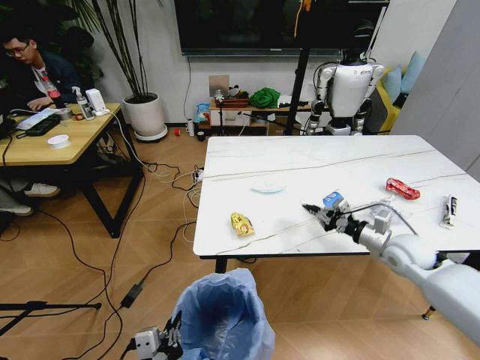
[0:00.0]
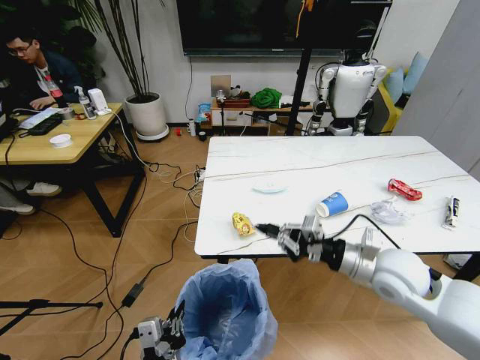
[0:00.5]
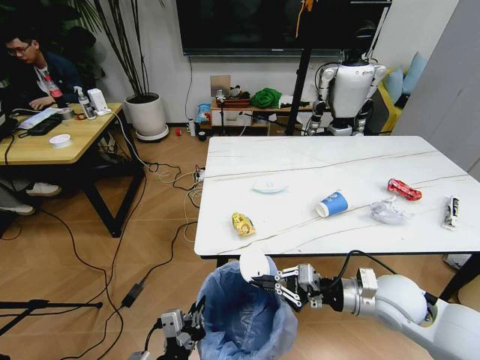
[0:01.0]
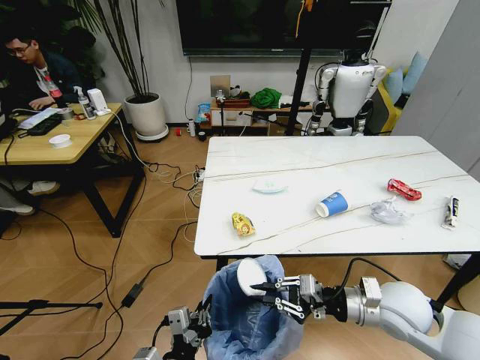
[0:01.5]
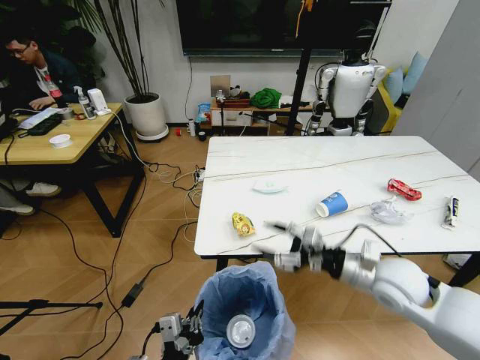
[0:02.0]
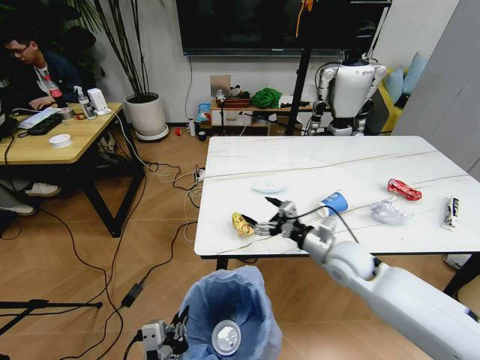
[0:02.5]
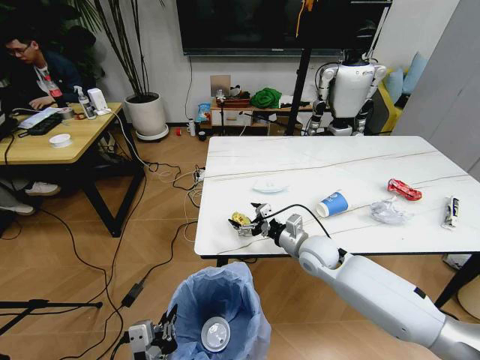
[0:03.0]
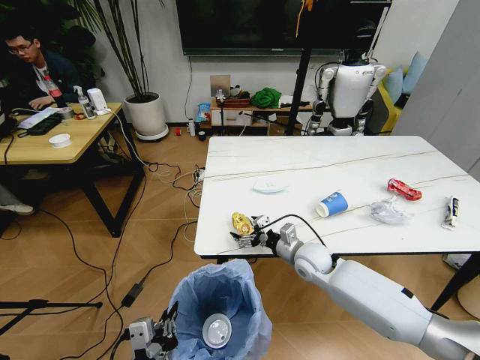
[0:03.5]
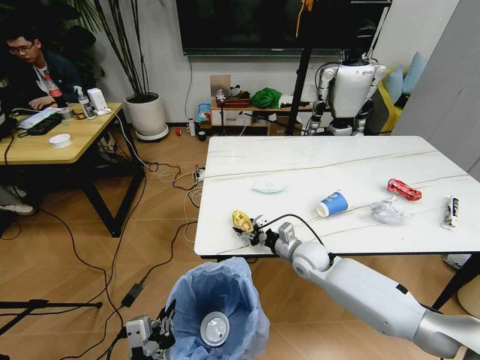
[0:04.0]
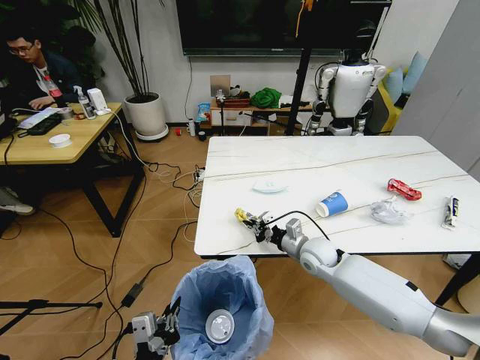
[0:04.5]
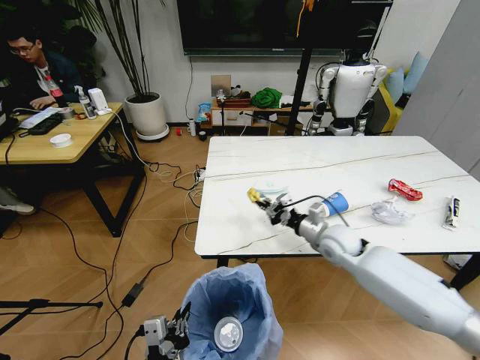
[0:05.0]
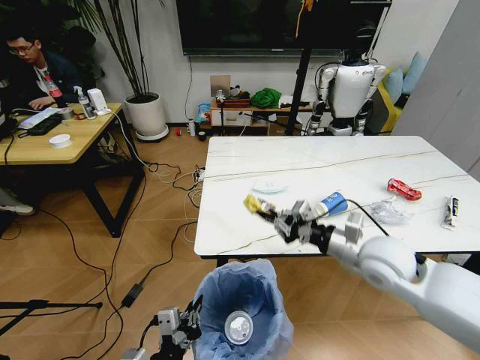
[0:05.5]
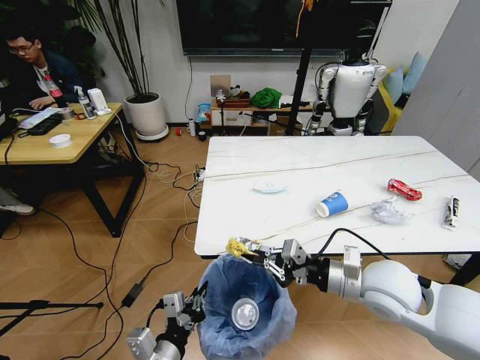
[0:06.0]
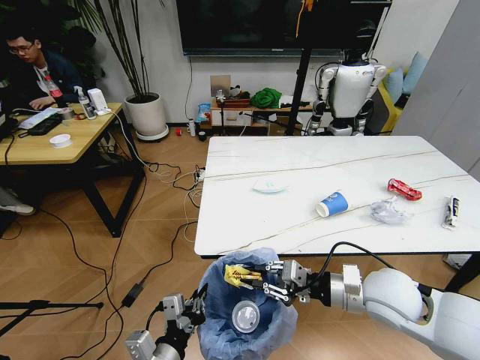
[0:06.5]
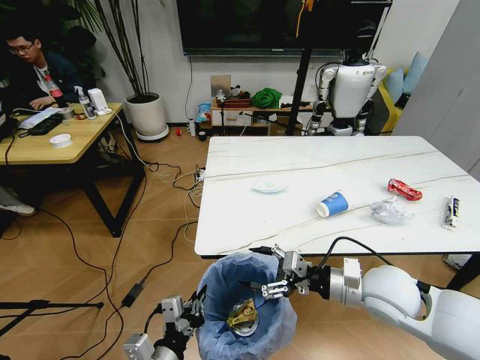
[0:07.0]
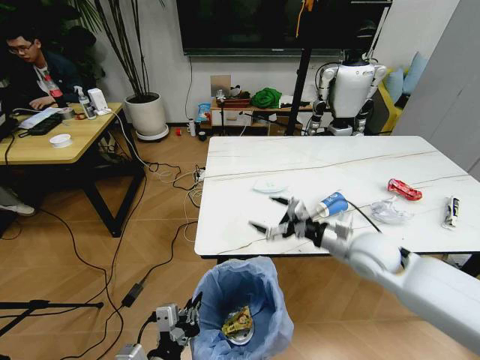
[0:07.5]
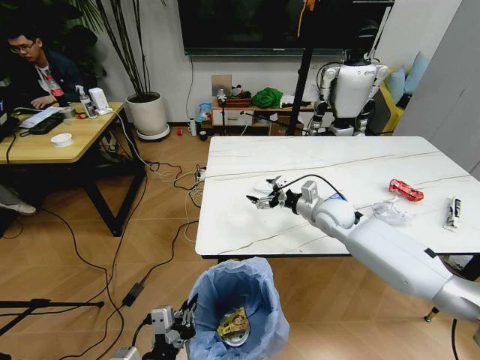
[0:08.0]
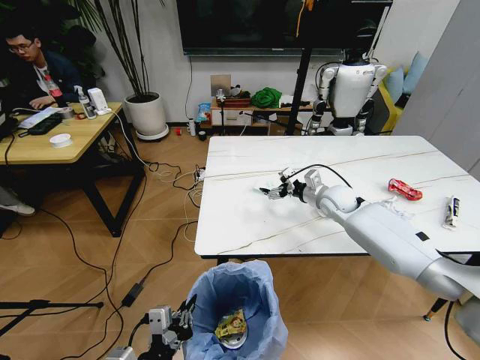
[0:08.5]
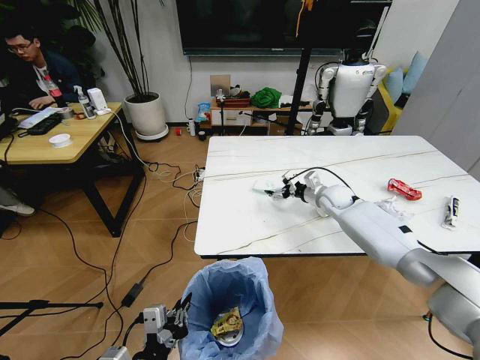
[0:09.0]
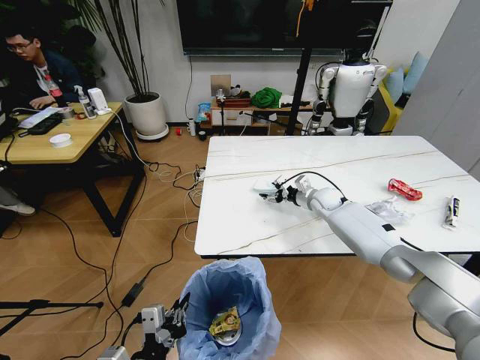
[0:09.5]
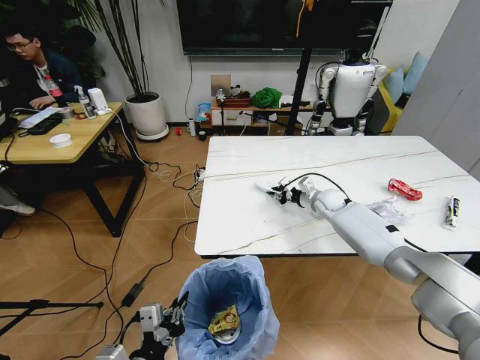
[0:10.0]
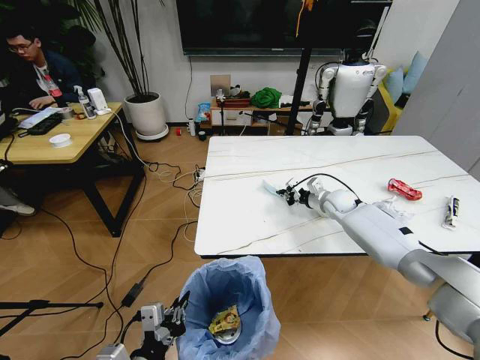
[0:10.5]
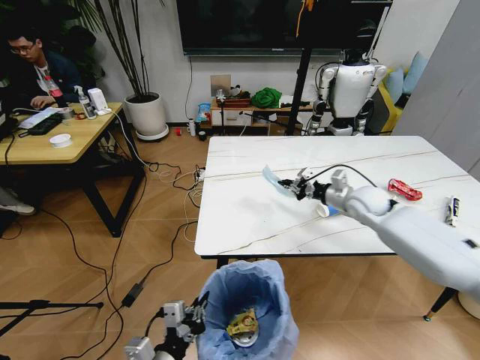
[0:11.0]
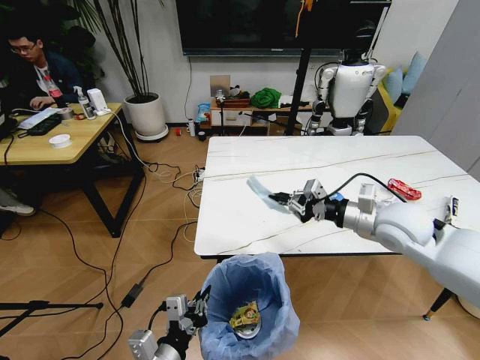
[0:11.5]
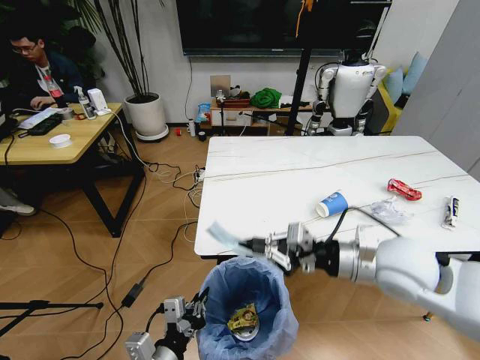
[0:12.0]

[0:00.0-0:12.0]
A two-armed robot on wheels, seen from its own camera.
Task of the whole recording: Pick up the trash bin and place the trash from the table into it.
0:00.0 to 0:02.0: The right gripper heads to the left and backward, covering approximately 15 cm, and opens its fingers.
0:02.0 to 0:04.0: The right gripper shifts roughly 20 cm downward, forward and to the left. Meanwhile the left gripper ends up roughly 5 cm from where it was.
0:04.0 to 0:06.0: The left gripper moves forward, roughly 5 cm. Meanwhile the right gripper travels upward, backward and to the right by approximately 20 cm, and closes.
0:06.0 to 0:08.0: The right gripper is displaced forward by some 20 cm, and opens.
0:08.0 to 0:10.0: The right gripper travels forward and downward by approximately 10 cm, and closes up.
0:10.0 to 0:12.0: The right gripper goes roughly 35 cm backward and upward.

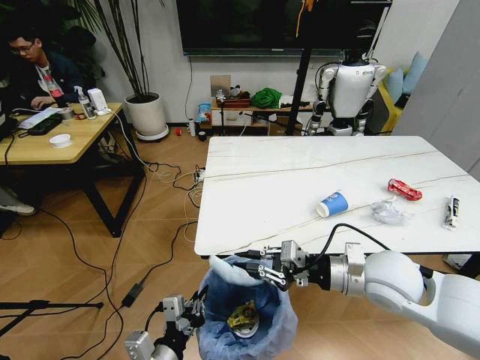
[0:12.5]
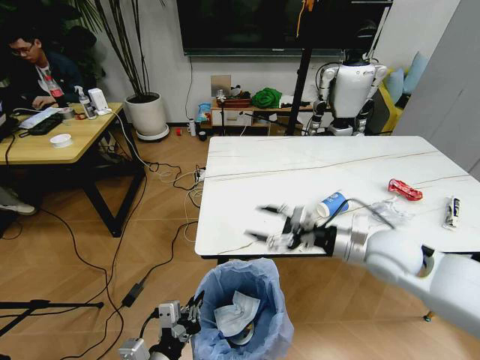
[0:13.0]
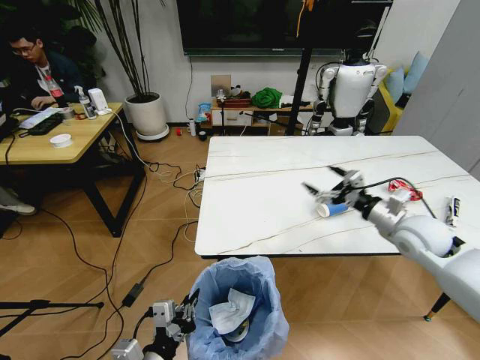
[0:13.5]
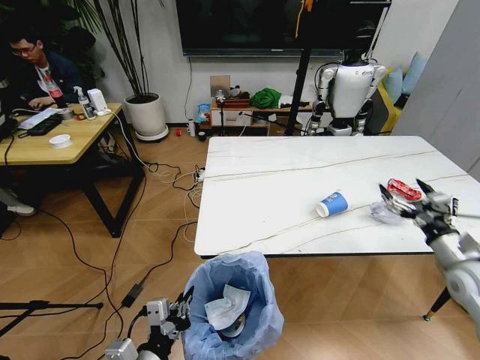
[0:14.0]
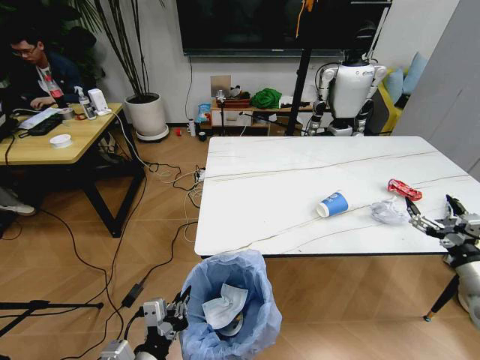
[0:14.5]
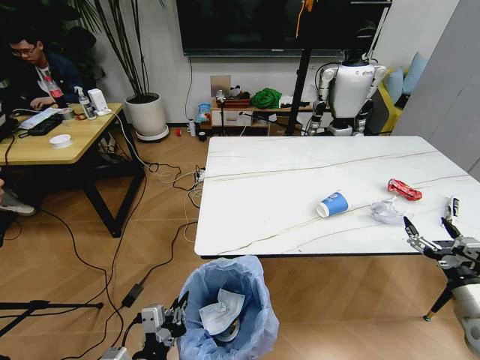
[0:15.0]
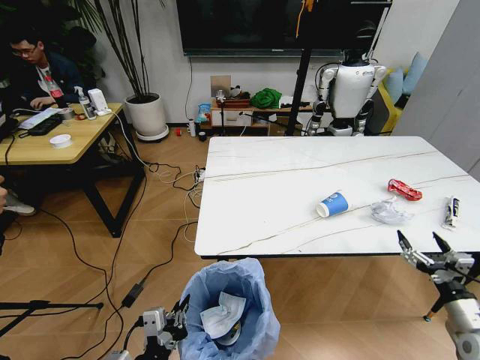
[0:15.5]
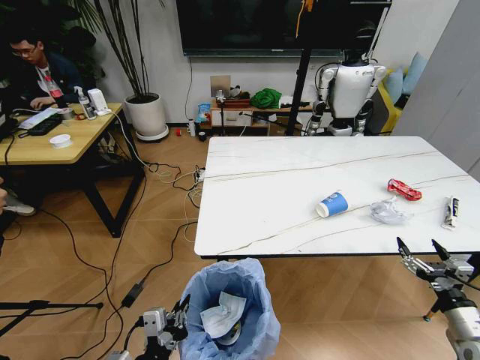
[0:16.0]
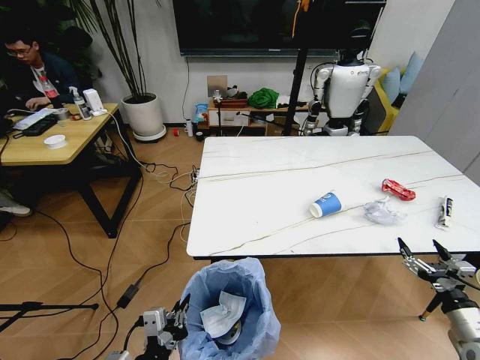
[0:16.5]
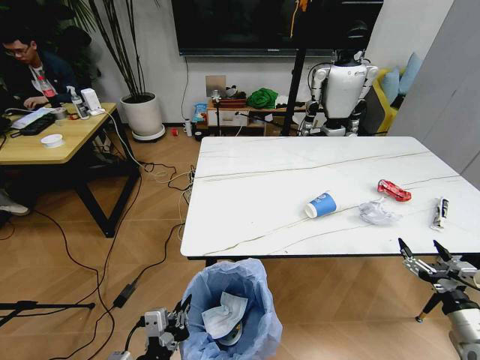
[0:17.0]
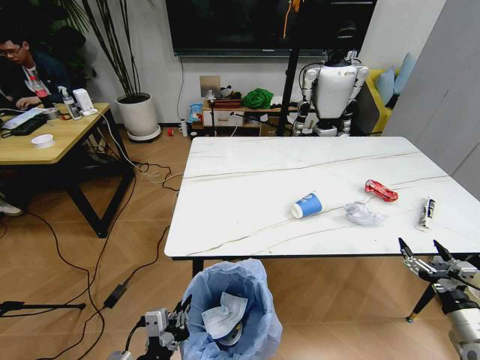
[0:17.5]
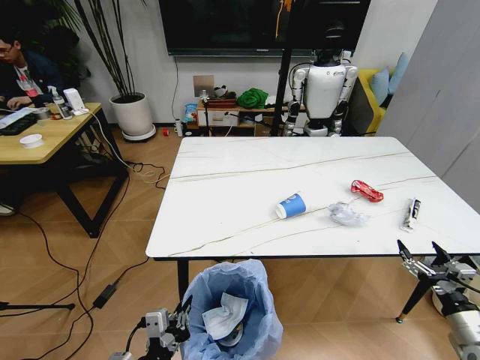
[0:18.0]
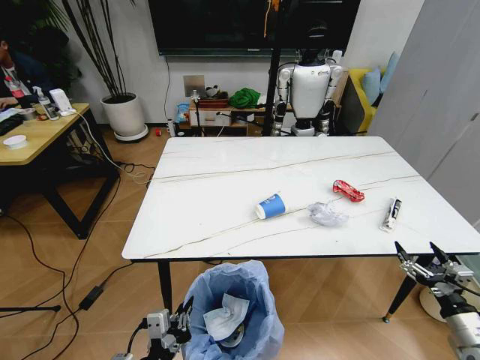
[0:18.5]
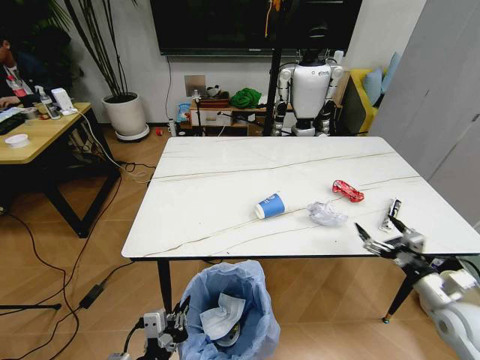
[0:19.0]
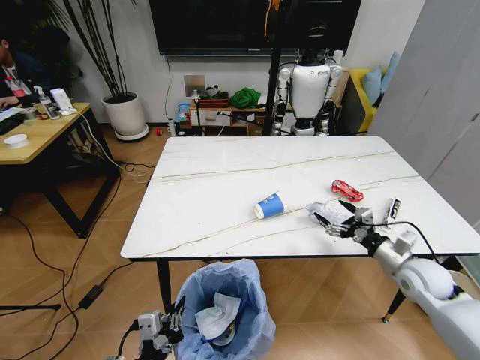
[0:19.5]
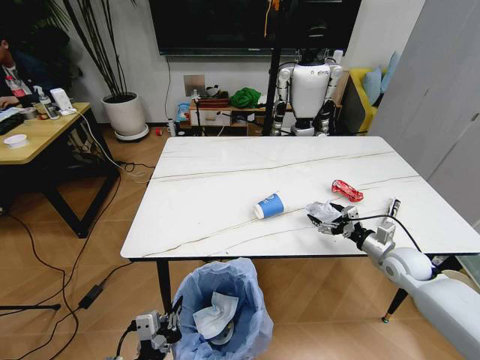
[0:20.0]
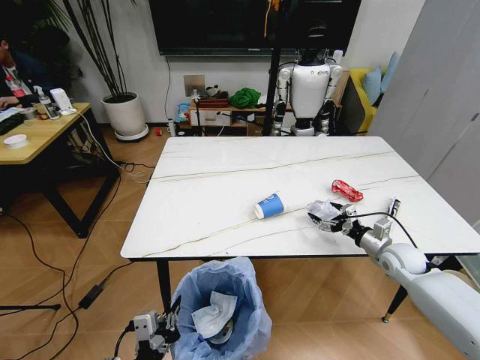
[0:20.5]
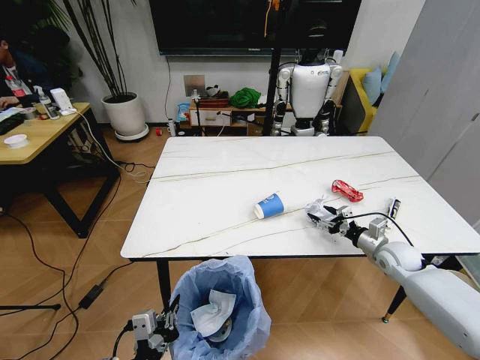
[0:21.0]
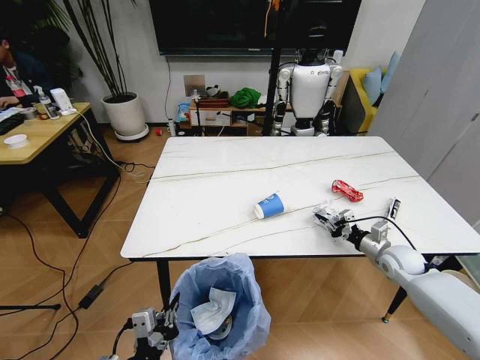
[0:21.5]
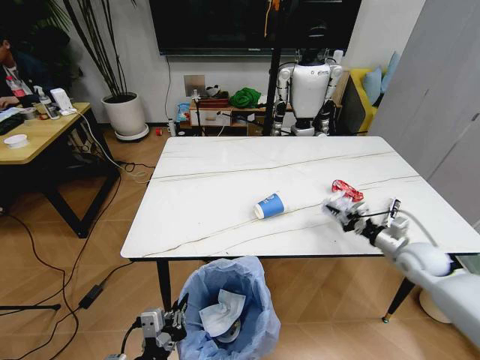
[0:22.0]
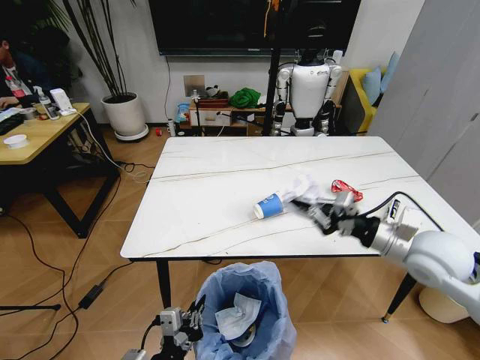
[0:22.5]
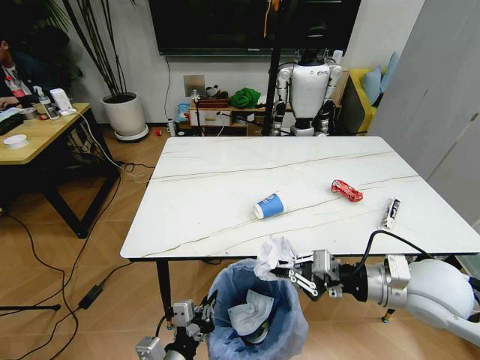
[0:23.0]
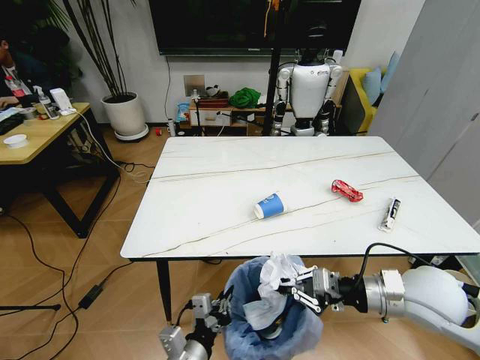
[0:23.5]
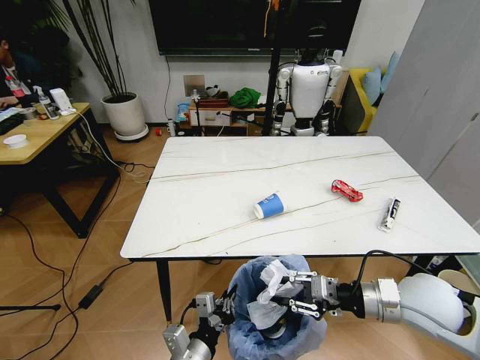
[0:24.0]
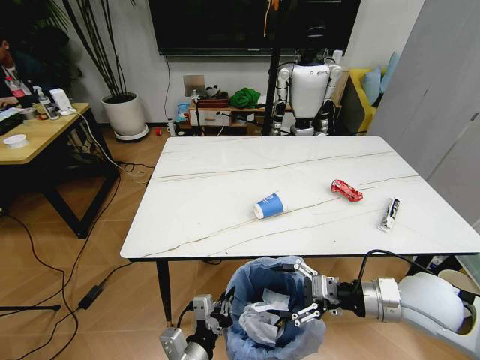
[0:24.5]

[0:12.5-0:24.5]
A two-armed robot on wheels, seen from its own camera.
Task of the whole recording: Pick up the trash bin and place the trash from the table into it.
0:12.5 to 0:14.5: The right gripper moves to the right, roughly 25 cm, and opens its fingers.
0:14.5 to 0:16.5: The right gripper travels downward and backward by about 10 cm.
0:18.5 to 0:20.5: The right gripper moves forward, some 25 cm.
0:20.5 to 0:22.5: The right gripper goes about 20 cm upward, backward and to the left, and closes its fingers.
0:22.5 to 0:24.5: The right gripper moves backward and downward, about 10 cm, and opens, while the left gripper changes place by some 5 cm.

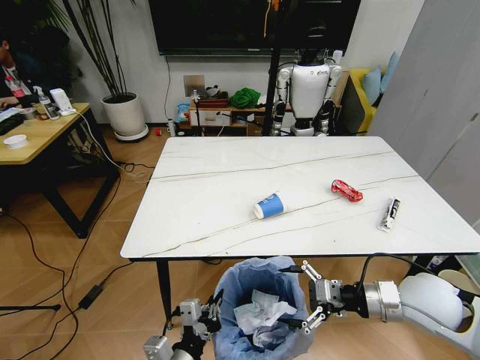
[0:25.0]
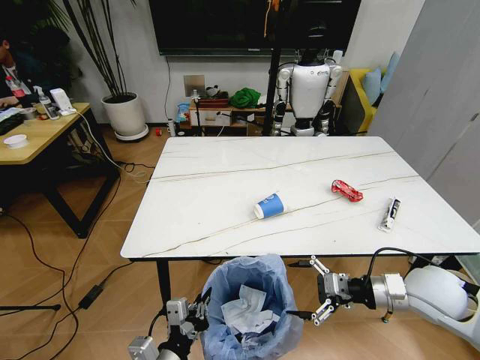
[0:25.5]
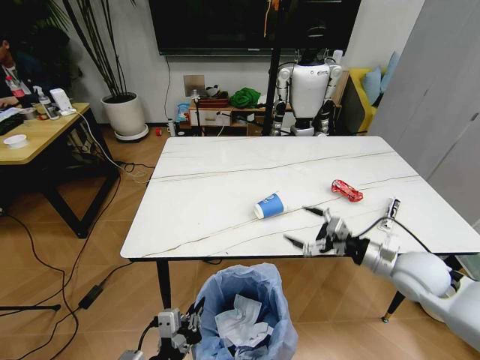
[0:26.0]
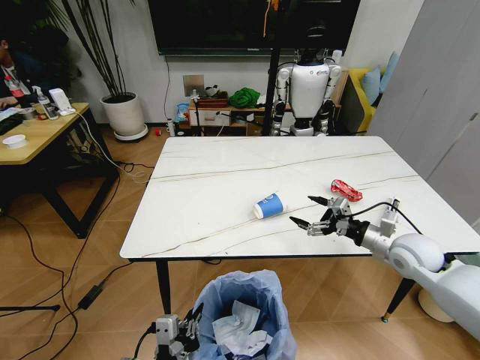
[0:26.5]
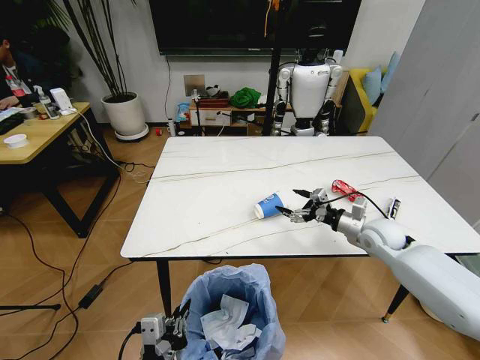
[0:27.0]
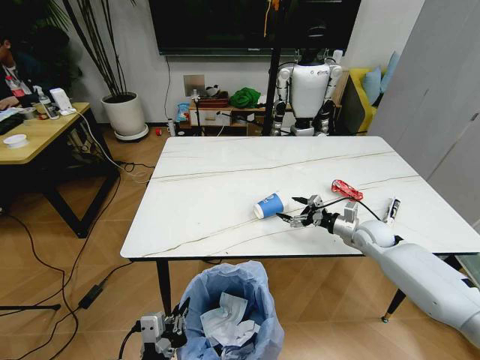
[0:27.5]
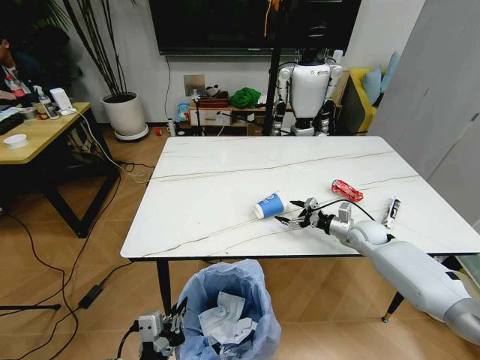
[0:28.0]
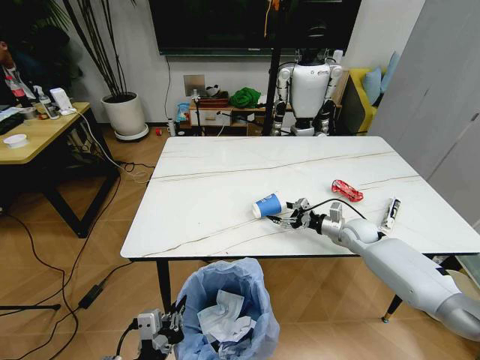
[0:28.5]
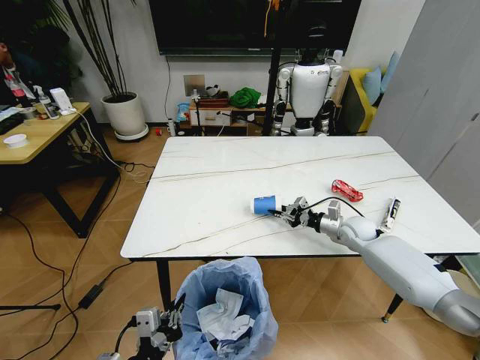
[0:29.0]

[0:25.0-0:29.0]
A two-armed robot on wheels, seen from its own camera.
Task of the whole recording: Pick up the trash bin and place the trash from the table into it.
0:25.0 to 0:27.0: The right gripper goes about 20 cm forward, while the left gripper goes some 5 cm to the left.
0:27.0 to 0:29.0: The right gripper is displaced downward and forward by approximately 10 cm, and closes.
